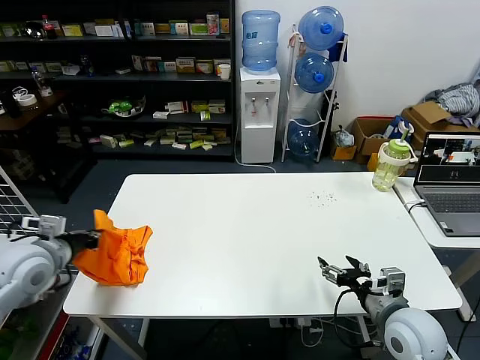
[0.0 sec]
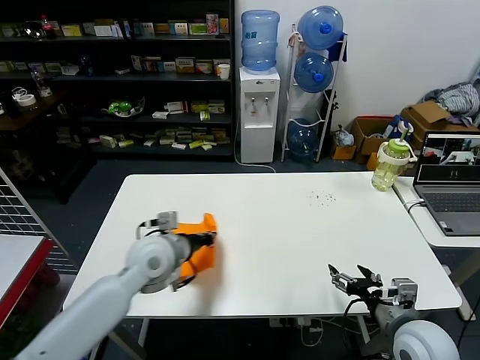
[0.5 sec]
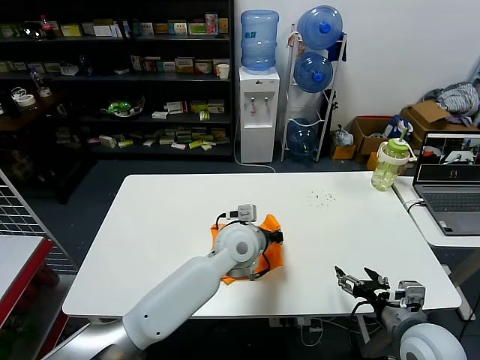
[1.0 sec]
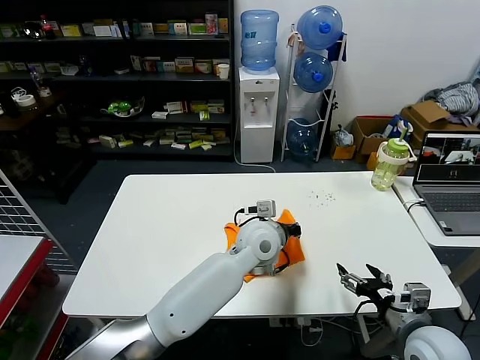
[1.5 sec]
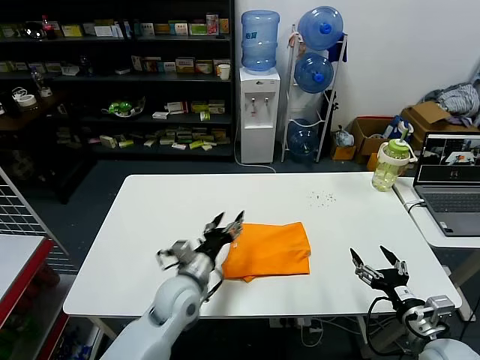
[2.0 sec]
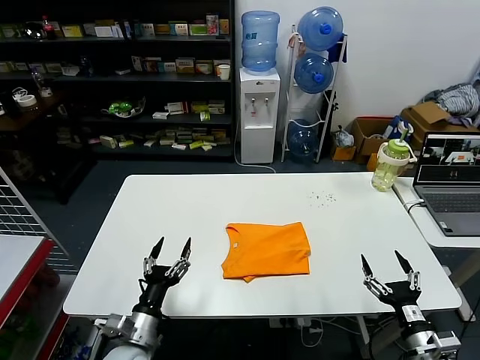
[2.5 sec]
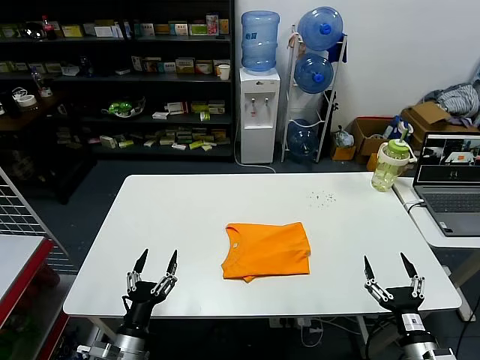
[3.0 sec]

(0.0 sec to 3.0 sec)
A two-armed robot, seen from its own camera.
Task of the whole recording: fold and organize the clothes.
0.0 sec - 1.5 sec: The left gripper goes some 50 cm to the right.
1.5 sec - 3.0 sec: The left gripper moves to the left, backward and downward, about 40 cm, and opens, while the right gripper travels downward and backward by roughly 10 cm.

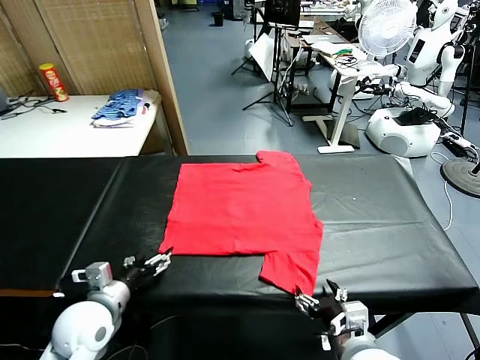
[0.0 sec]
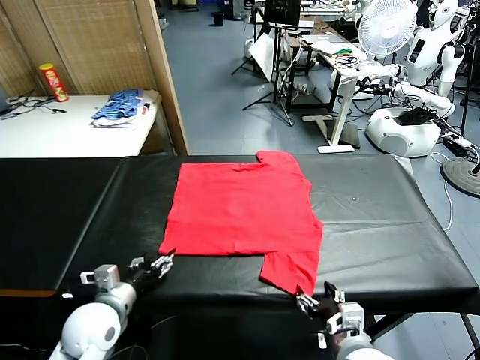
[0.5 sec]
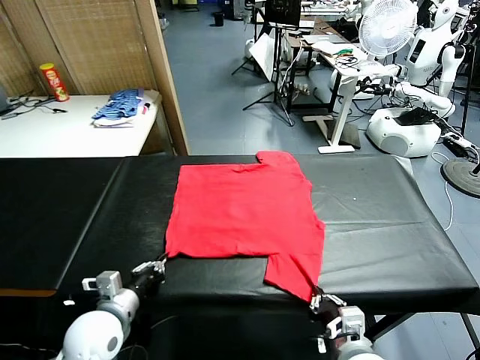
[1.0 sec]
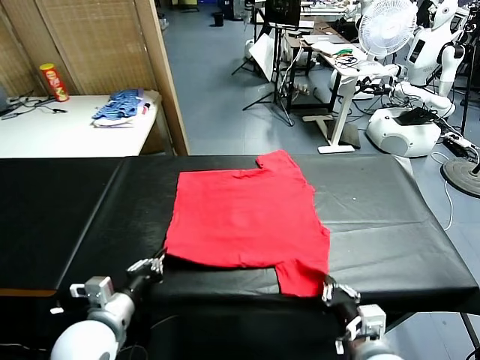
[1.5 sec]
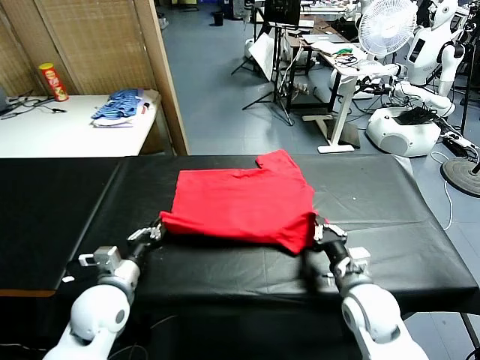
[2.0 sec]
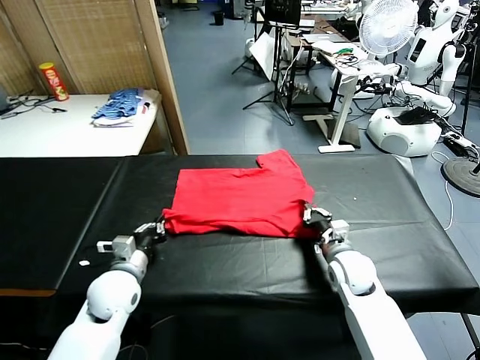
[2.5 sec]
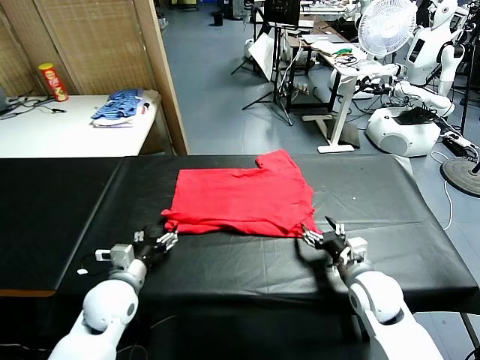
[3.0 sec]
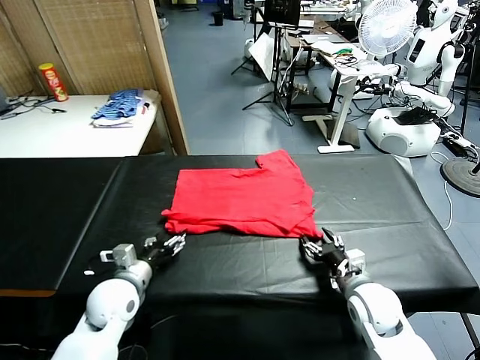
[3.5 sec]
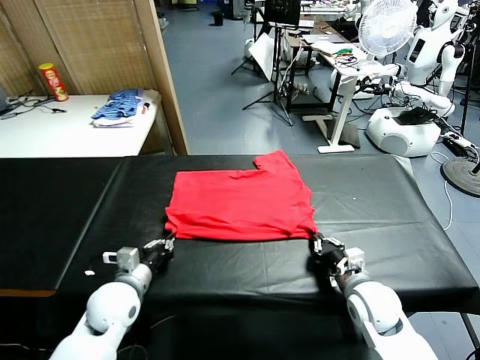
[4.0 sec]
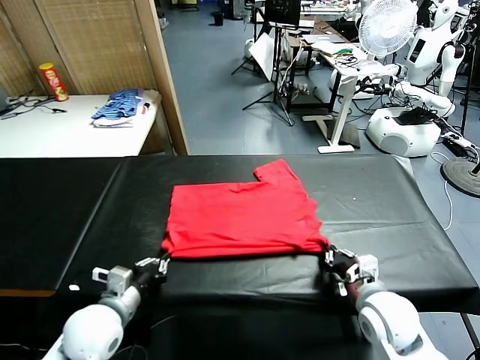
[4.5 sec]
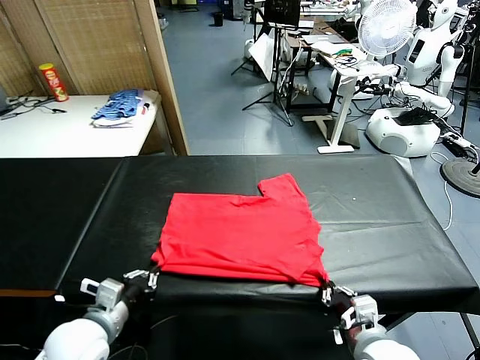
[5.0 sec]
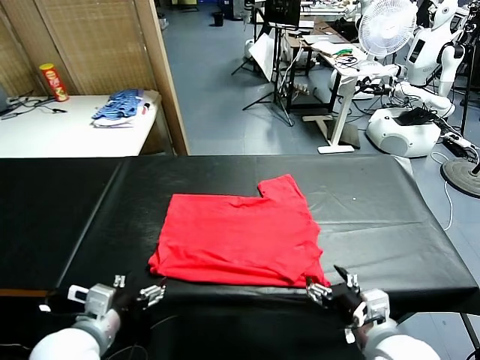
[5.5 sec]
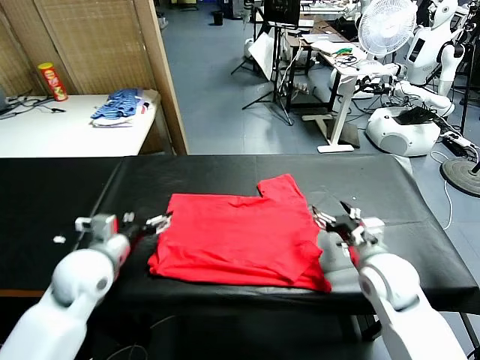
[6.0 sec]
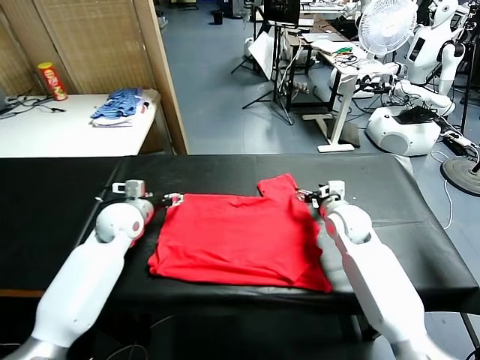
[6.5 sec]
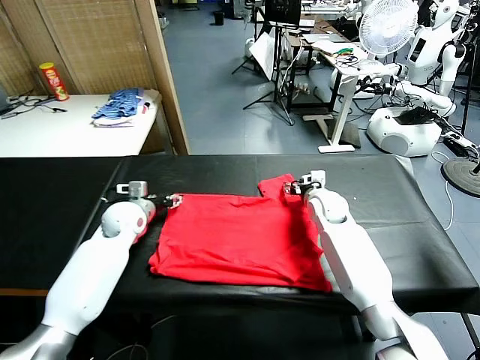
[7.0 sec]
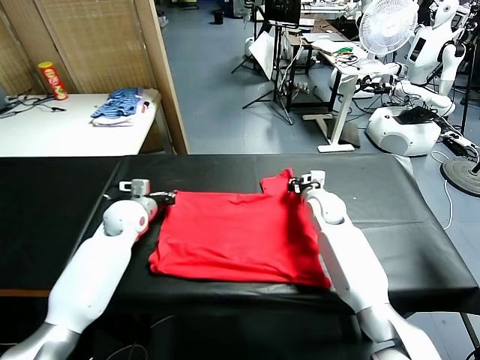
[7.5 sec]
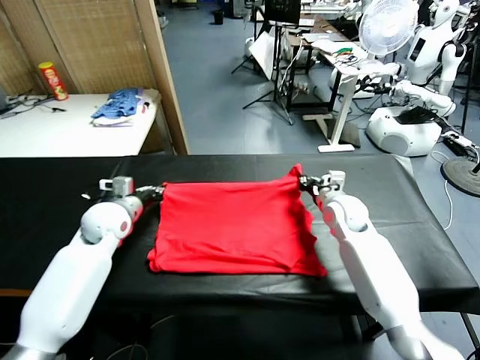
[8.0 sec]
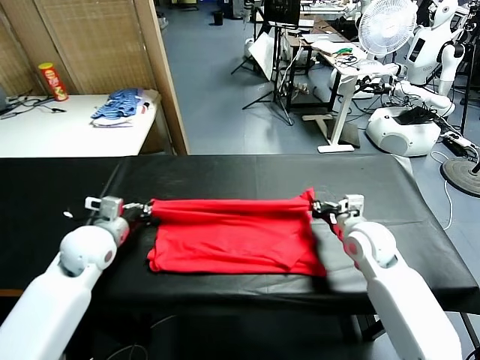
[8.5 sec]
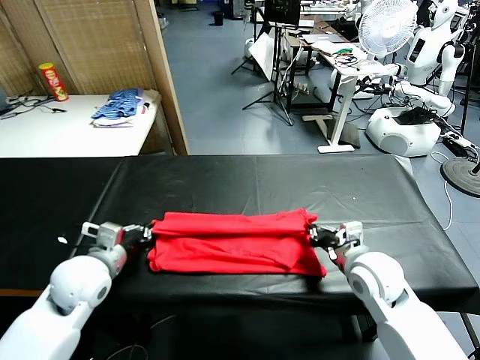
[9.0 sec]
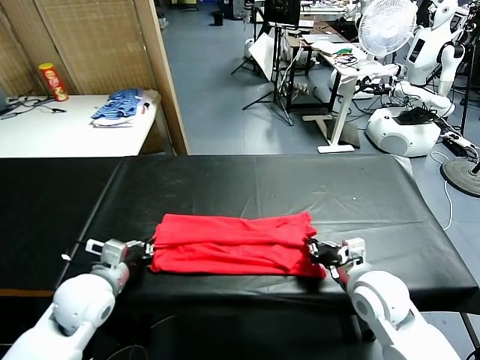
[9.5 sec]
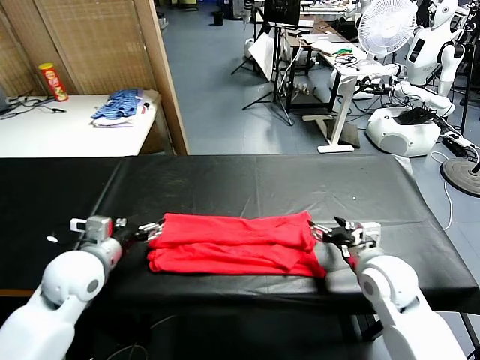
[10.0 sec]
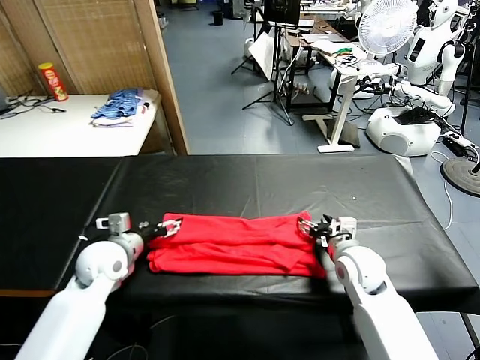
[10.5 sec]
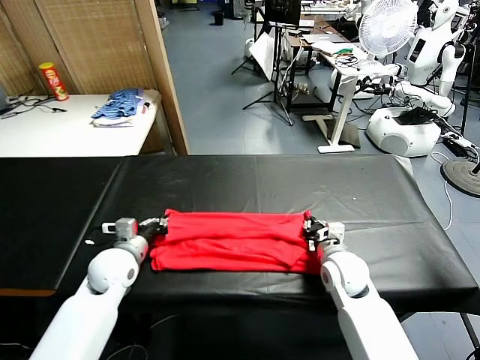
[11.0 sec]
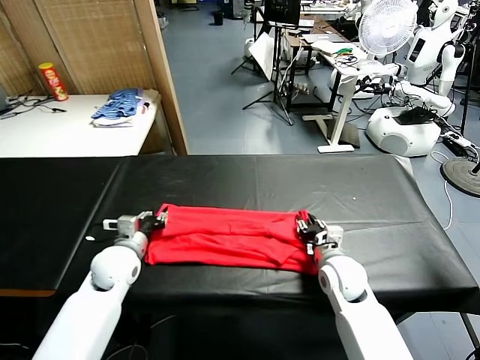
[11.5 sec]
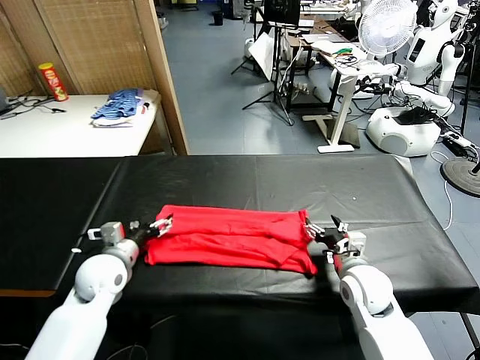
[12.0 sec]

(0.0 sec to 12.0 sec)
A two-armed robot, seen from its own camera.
Task of the whole recording: fold and organize the clothes.
Step, 0.0 sec - 1.0 sec: use both grippers simultaneously to clamp the lower edge of the clothing fabric.
Step, 1.5 sec - 2.5 sec: use both grippers to drag the lower edge of the fabric forward and fold it over the upper edge.
Step, 3.5 sec - 5.0 sec: Drag the clothes downward with both gripper.
Step, 5.5 sec - 7.5 sec: use both grippers simultaneously to clamp the upper edge of the clothing fabric.
Step, 8.0 sec - 9.5 sec: use both grippers to drag the upper edge of the fabric backward and fold it over the lower edge.
2.0 sec - 4.0 sec: The left gripper opens, then closes once more, while the right gripper opens, then closes again.
4.0 sec - 6.0 sec: The right gripper is displaced forward and upward by some 10 cm, and opens, while the left gripper travels upward by about 10 cm, moves approximately 10 cm backward and comes back, and opens.
6.0 sec - 8.0 sec: The grippers both shift forward by approximately 10 cm. The right gripper closes; the left gripper closes its fingers.
8.0 sec - 10.0 sec: Both grippers move backward, roughly 15 cm. The left gripper opens its fingers, while the right gripper opens its fingers.
10.0 sec - 12.0 sec: The right gripper closes, then reopens. Meanwhile the left gripper goes approximately 10 cm downward, and closes, then opens again.

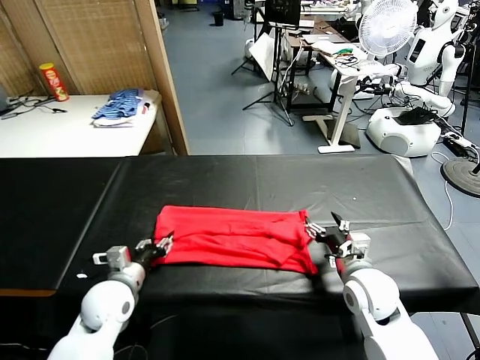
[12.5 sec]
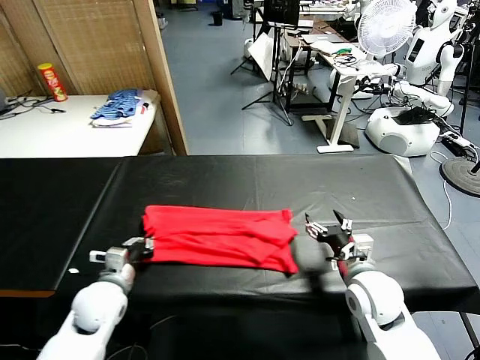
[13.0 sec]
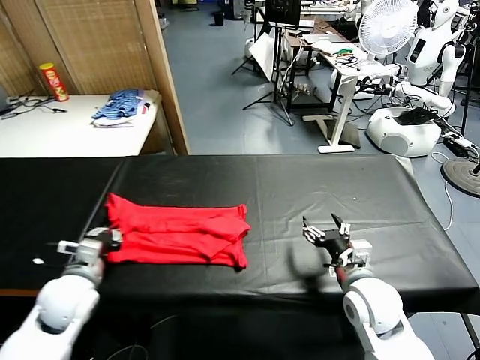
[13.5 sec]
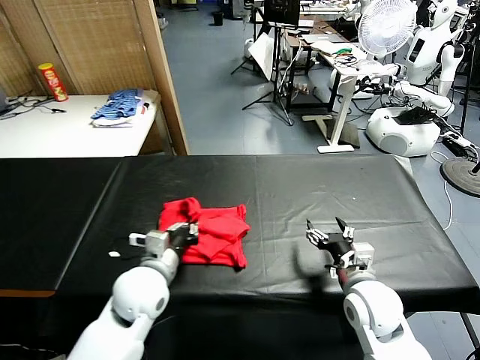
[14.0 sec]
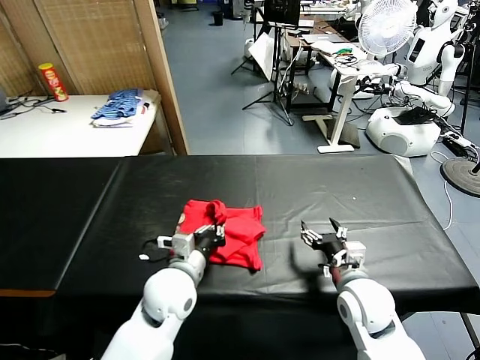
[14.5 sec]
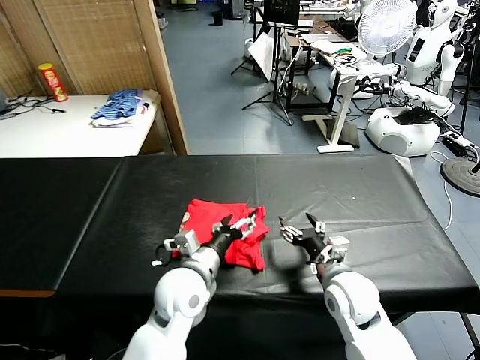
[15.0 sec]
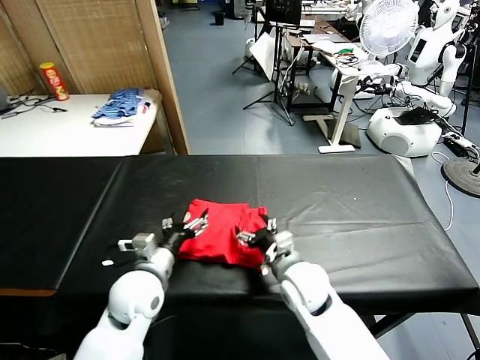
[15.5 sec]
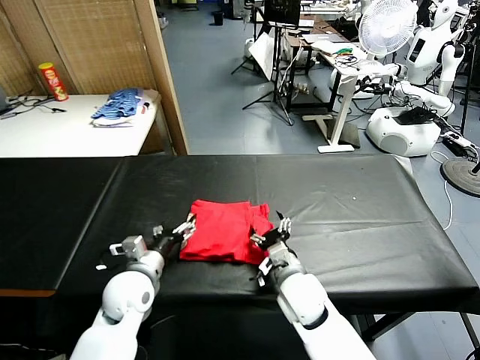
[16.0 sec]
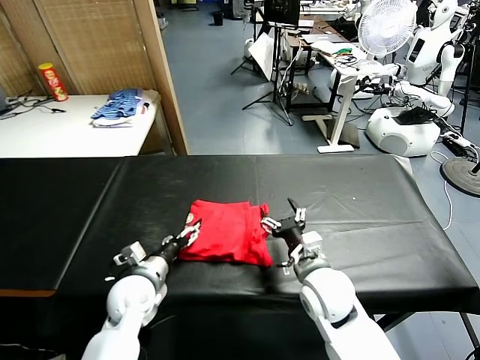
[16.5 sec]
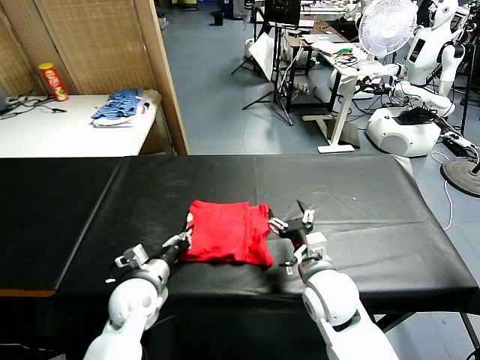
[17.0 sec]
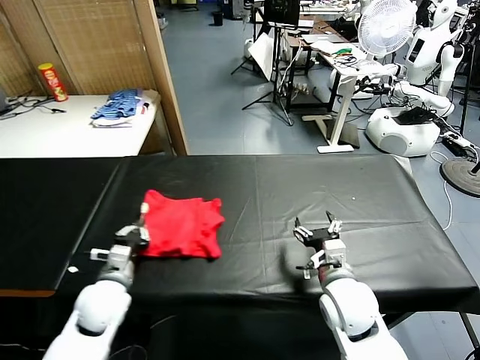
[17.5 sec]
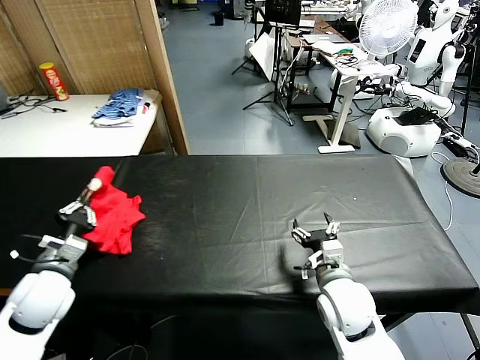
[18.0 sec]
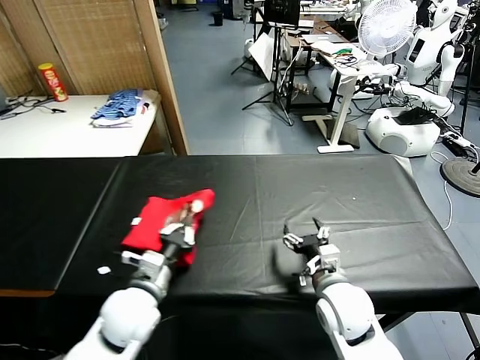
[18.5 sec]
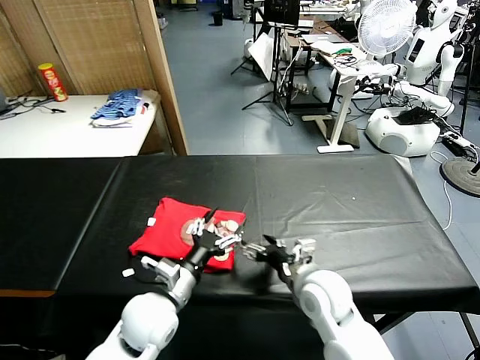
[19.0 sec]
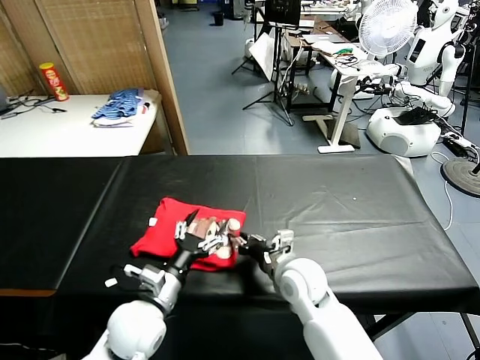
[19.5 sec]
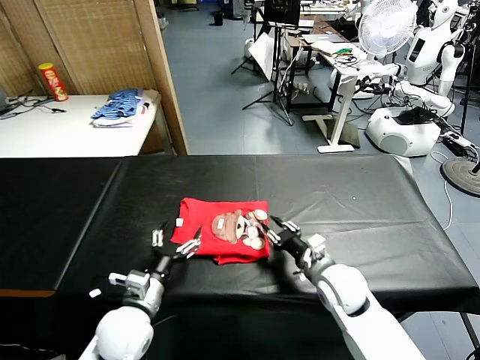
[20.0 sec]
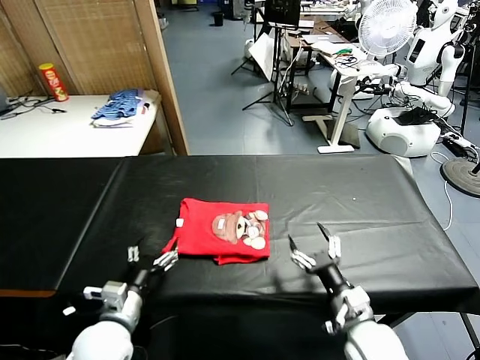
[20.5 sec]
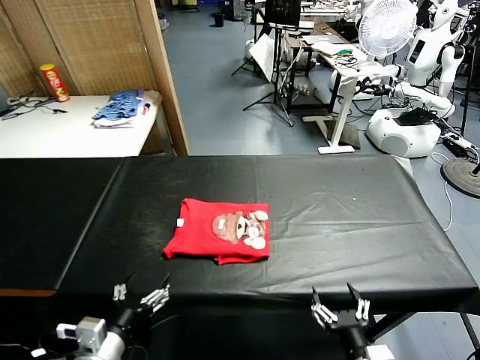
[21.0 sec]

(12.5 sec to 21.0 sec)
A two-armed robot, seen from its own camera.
Task of the whole recording: fold and organize the clothes.
Step, 13.5 sec - 15.0 sec: use the left gripper to drag the left edge of the fabric to the left and folds it over the right edge.
Step, 15.5 sec - 18.5 sec: Flip the folded clothes over with left gripper.
Step, 19.0 sec - 20.0 sec: Drag the clothes to the center of the table.
12.5 sec - 14.5 sec: The left gripper shifts roughly 15 cm to the right, and closes up.
14.5 sec - 16.5 sec: The right gripper is displaced to the left by about 10 cm, while the left gripper travels to the left and downward by some 10 cm, and opens up.
16.5 sec - 19.0 sec: The left gripper heads to the right and backward, covering approximately 10 cm, and closes and opens again.
19.0 sec - 21.0 sec: The left gripper moves backward and to the left, approximately 15 cm, while the right gripper heads backward, covering approximately 20 cm, and closes and opens again.
